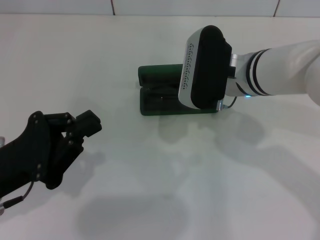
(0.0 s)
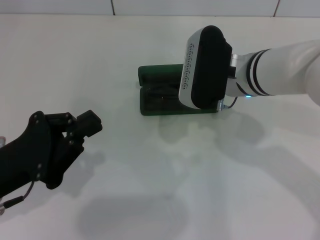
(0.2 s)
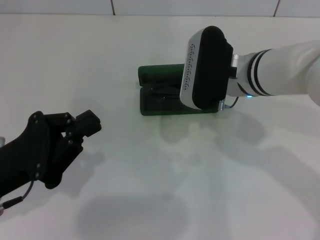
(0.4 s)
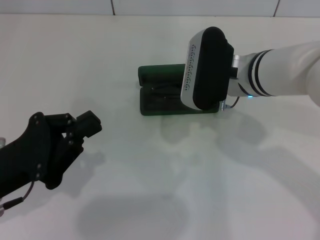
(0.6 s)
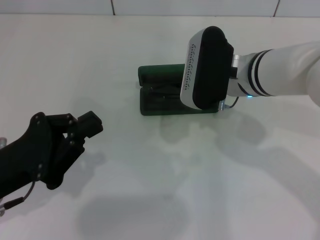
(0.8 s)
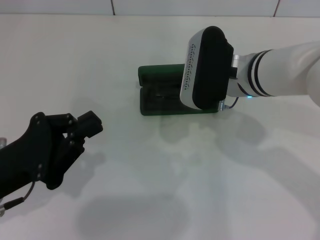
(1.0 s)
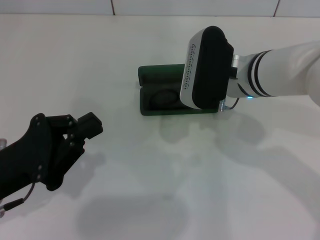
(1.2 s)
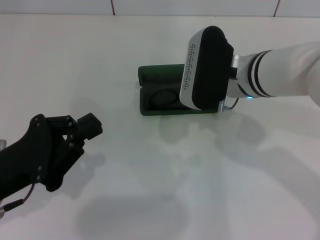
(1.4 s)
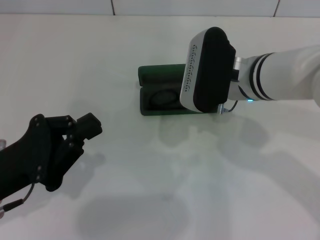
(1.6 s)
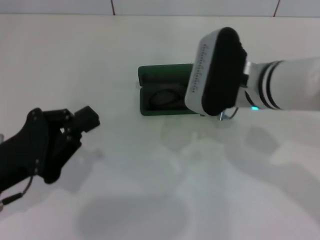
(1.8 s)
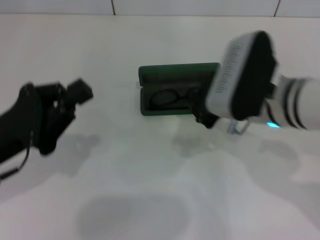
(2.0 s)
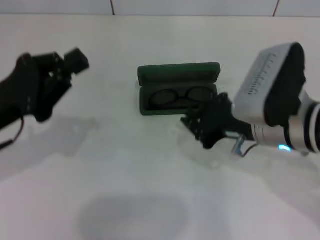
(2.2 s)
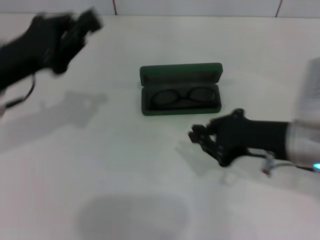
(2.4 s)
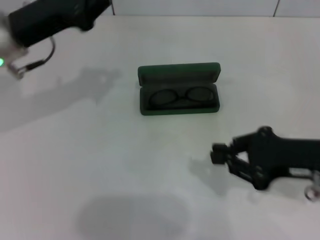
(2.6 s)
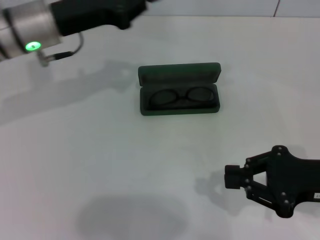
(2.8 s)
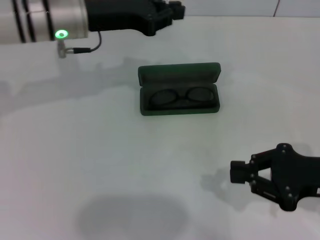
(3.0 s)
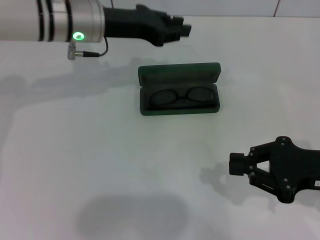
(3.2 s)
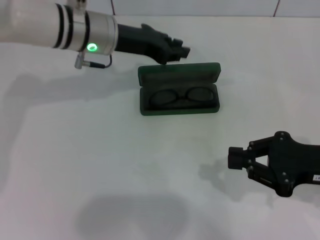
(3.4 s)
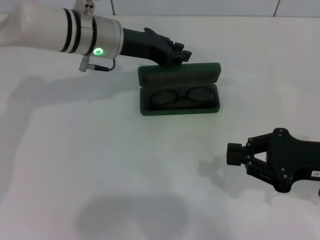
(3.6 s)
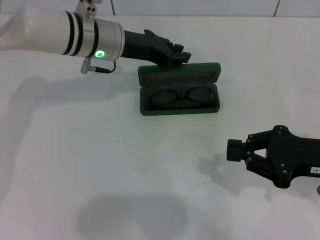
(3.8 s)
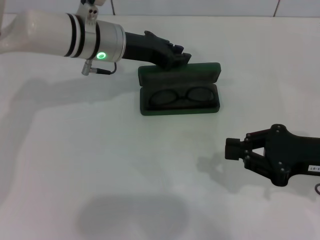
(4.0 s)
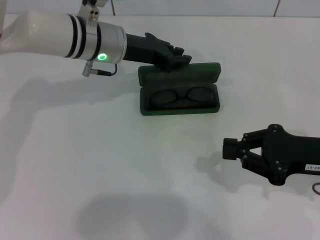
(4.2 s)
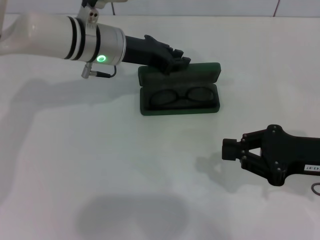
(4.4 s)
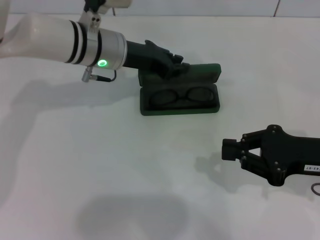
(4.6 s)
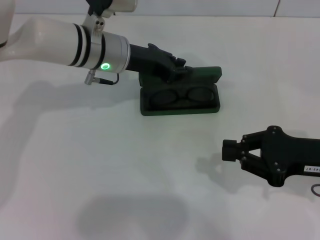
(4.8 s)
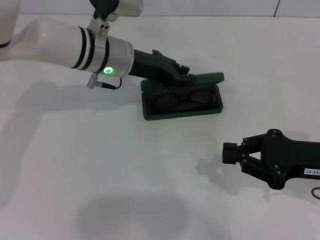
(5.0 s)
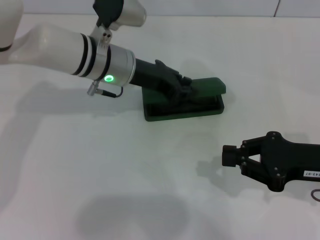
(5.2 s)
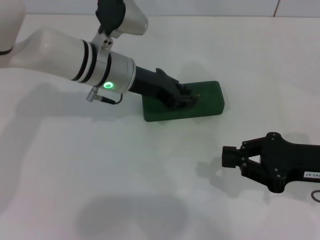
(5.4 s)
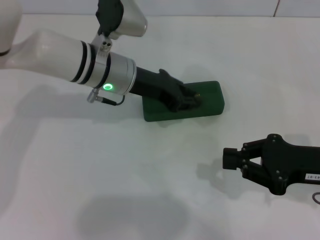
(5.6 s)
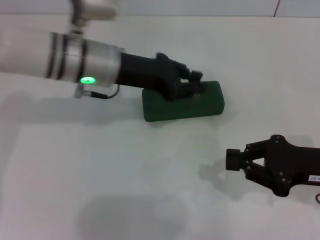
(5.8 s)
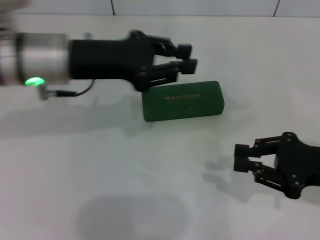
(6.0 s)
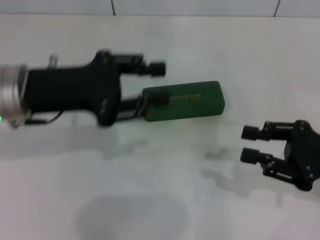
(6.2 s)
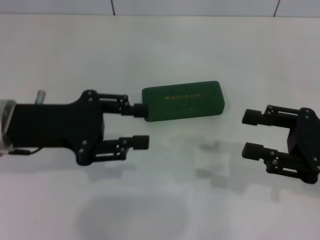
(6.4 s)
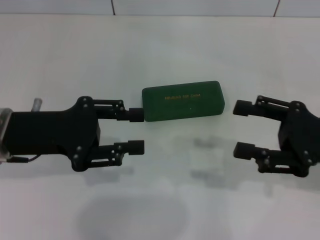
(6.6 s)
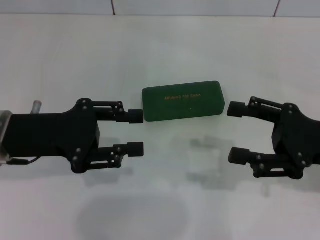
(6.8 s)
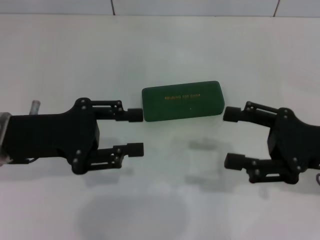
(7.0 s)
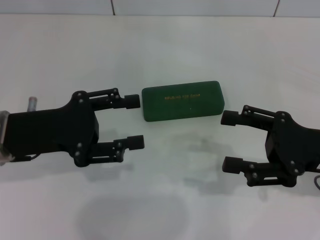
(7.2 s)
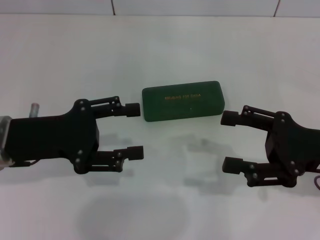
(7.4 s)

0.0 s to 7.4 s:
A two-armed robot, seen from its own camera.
Step, 1.6 to 5.4 s: Close the glasses case with your left hand.
0.0 to 1.4 s: Both grippers stay put.
1.4 to 3.0 s: The right gripper travels to the right and backward by roughly 20 cm; the left gripper moves forward, some 20 cm.
3.0 to 4.4 s: The left gripper moves about 5 cm.
4.4 to 6.0 s: The left gripper shifts roughly 10 cm backward, to the left and upward.
6.0 to 7.4 s: The right gripper opens its fingers. The left gripper moves backward, to the left and downward, about 10 cm, and opens its fingers.
